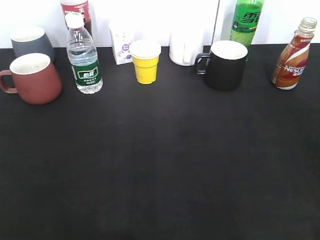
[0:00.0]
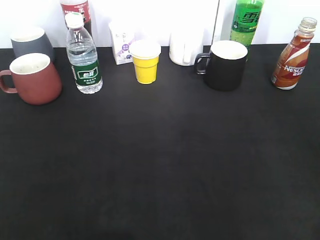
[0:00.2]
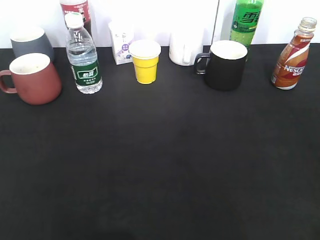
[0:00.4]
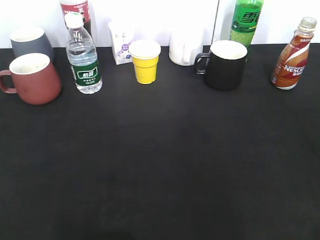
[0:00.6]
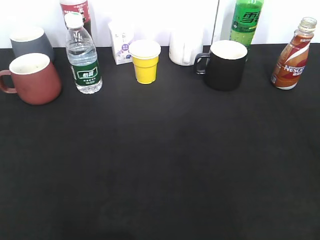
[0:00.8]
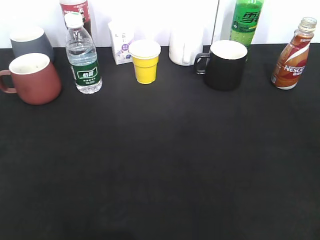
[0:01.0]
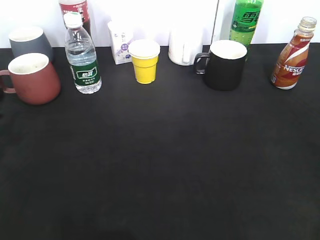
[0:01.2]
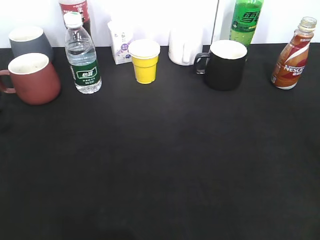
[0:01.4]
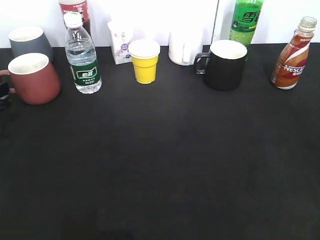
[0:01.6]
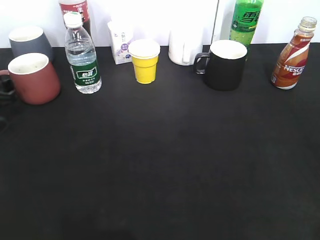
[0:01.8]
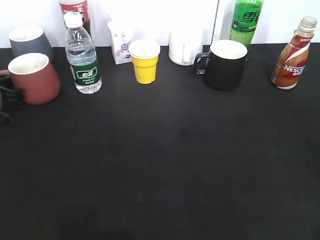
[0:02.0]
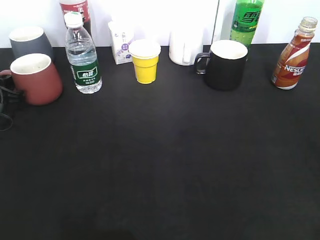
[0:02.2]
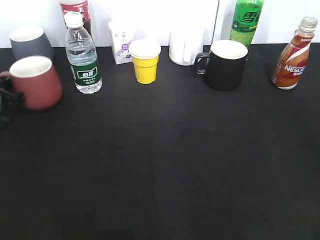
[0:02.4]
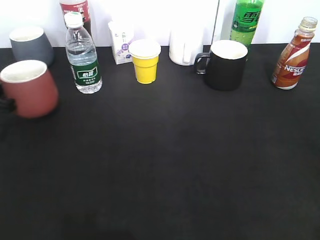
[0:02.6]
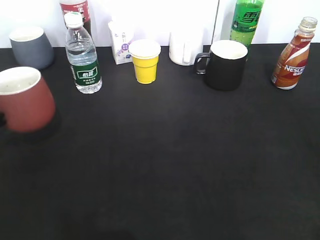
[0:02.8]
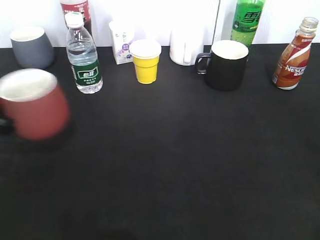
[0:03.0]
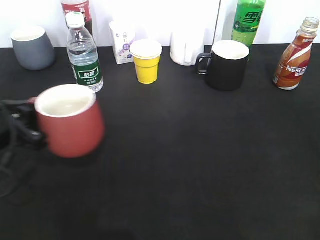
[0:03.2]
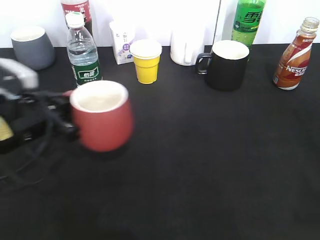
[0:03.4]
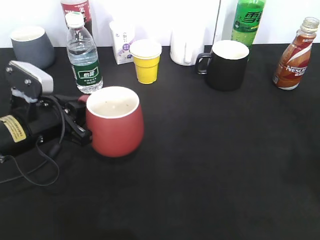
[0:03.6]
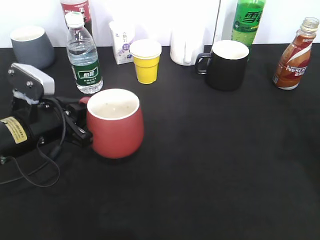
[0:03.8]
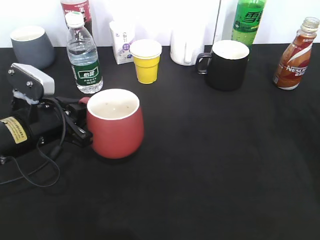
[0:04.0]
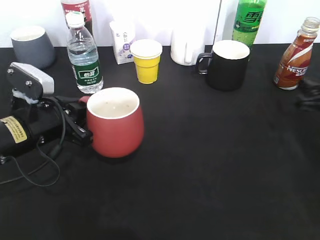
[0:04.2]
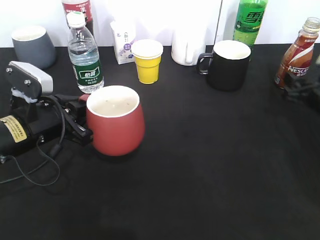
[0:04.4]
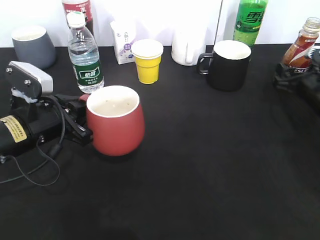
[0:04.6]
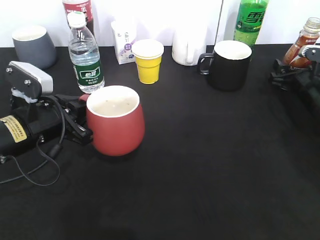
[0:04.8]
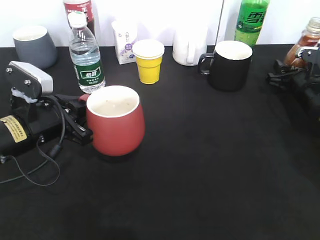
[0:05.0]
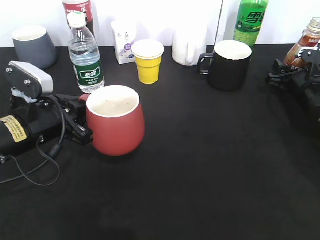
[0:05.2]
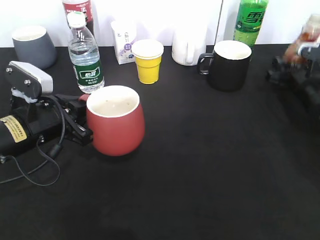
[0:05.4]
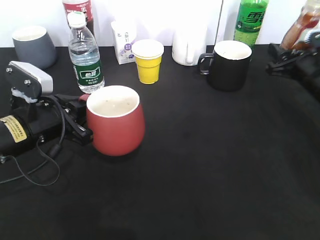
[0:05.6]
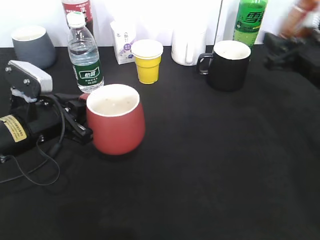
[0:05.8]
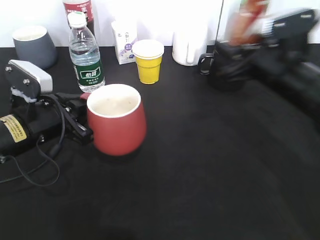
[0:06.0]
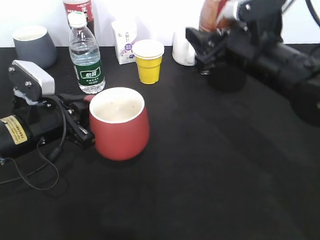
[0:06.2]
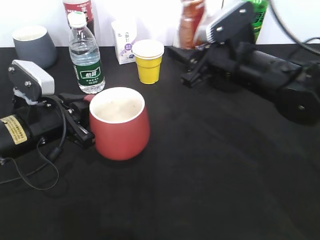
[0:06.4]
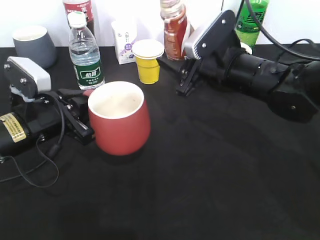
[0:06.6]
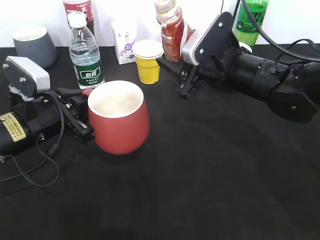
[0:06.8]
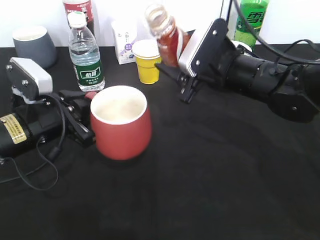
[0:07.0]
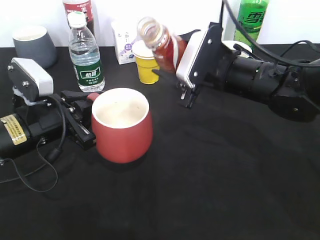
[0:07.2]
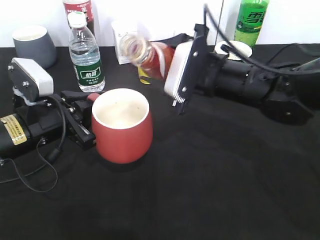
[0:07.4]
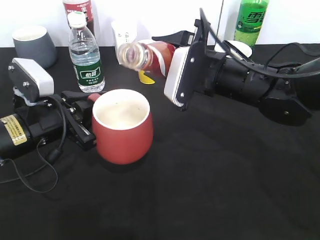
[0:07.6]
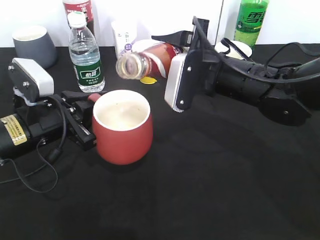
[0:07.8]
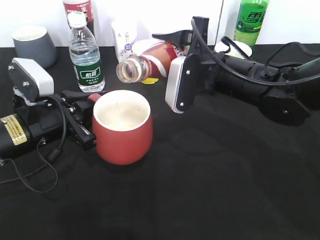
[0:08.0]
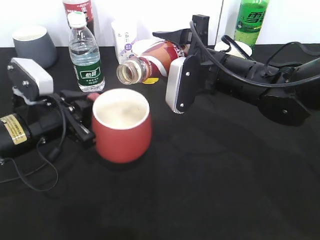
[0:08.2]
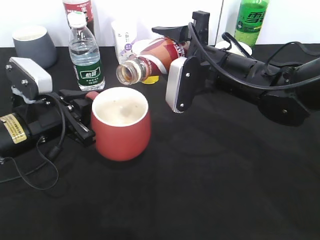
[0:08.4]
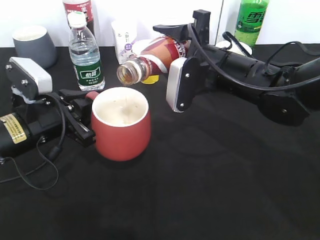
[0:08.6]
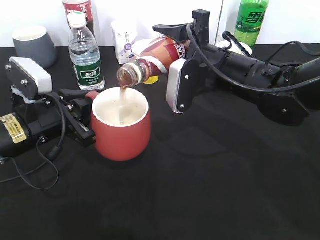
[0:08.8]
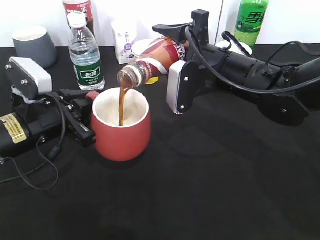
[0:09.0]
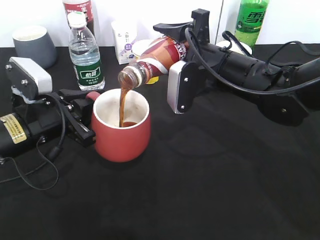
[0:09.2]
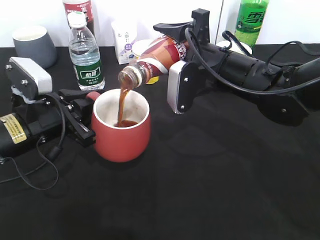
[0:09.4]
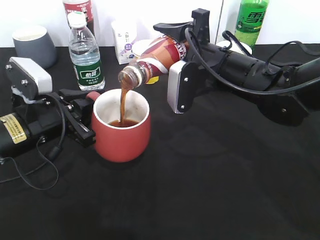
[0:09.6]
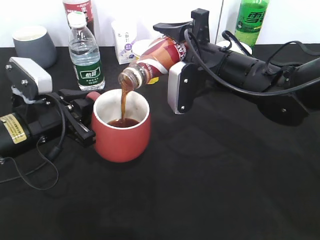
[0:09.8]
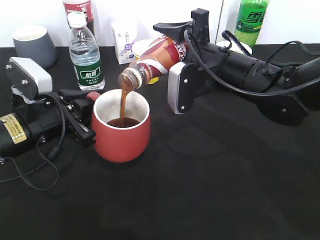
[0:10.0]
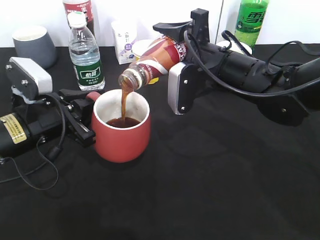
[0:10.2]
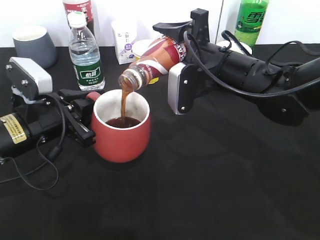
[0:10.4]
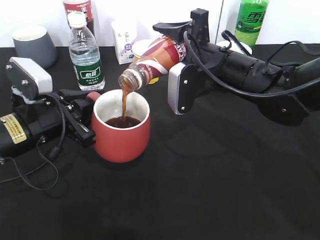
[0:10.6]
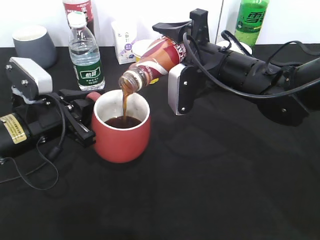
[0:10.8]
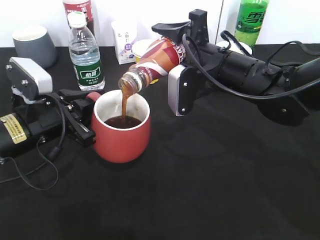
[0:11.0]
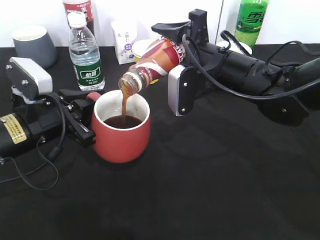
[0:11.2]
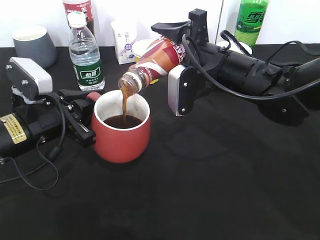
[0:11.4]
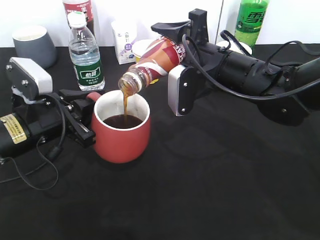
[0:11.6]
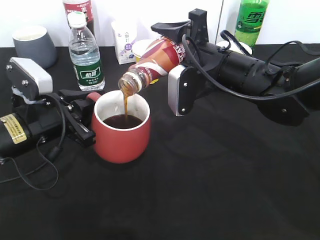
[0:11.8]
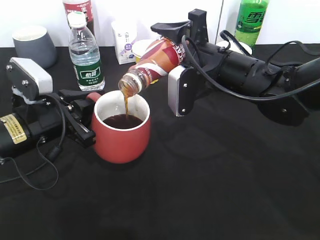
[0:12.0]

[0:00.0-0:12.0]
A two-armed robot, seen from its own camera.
Step, 0:00.0 to 0:02.2: Grasp the red cup with left gripper.
Step, 0:02.4 to 0:03.4: Lift the red cup with left gripper.
Step, 0:03.8 to 0:05.2: Grasp the bottle with coffee with right gripper.
0:00.0 to 0:01.6: The left gripper shifts roughly 35 cm forward and downward.
0:01.6 to 0:03.0: The left gripper shifts roughly 10 cm backward and to the right, and closes its fingers.
0:03.0 to 0:04.4: The left gripper goes approximately 10 cm to the right. The right gripper goes approximately 35 cm forward and downward, and opens up.
0:04.4 to 0:06.0: The right gripper is displaced to the left and upward by about 15 cm, and closes its fingers.
0:06.0 to 0:07.6: The right gripper goes approximately 10 cm to the left.
0:09.0 to 0:10.4: Both grippers stay about where they are.
0:10.4 to 0:12.0: Both grippers stay put.

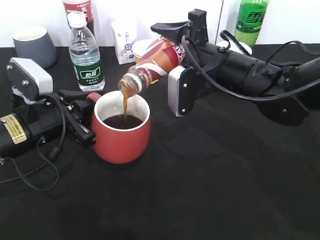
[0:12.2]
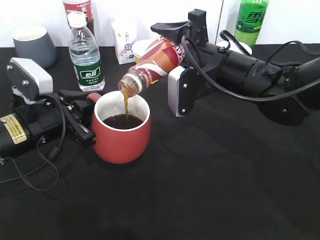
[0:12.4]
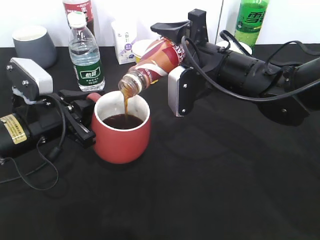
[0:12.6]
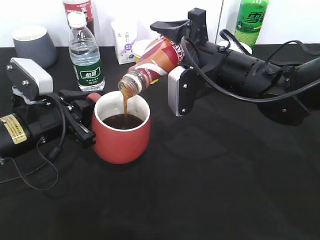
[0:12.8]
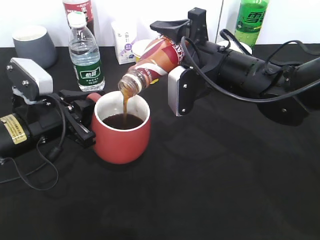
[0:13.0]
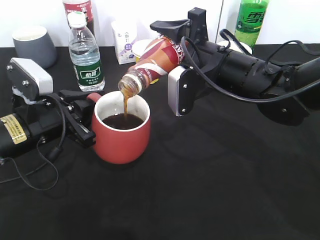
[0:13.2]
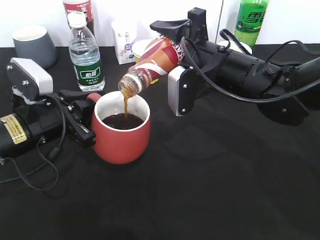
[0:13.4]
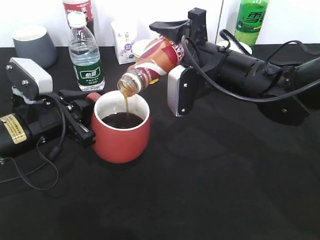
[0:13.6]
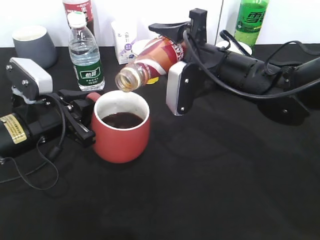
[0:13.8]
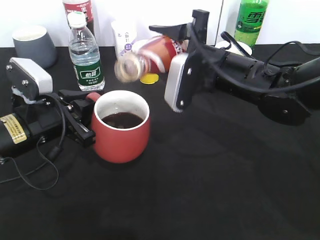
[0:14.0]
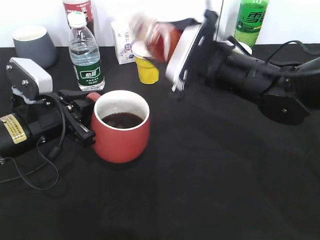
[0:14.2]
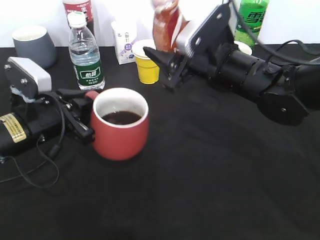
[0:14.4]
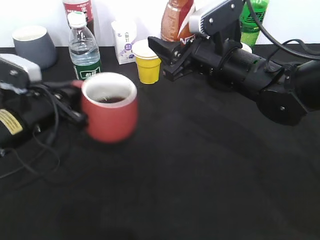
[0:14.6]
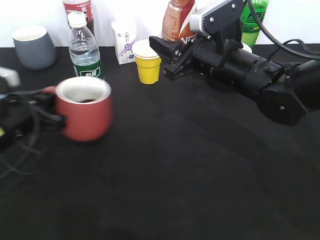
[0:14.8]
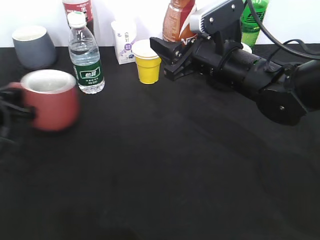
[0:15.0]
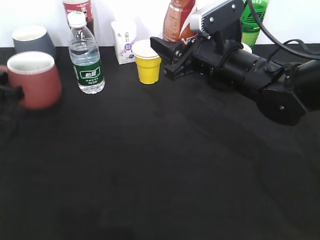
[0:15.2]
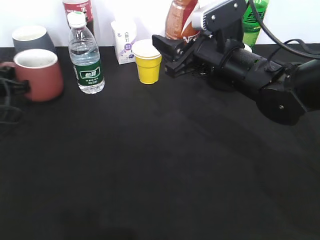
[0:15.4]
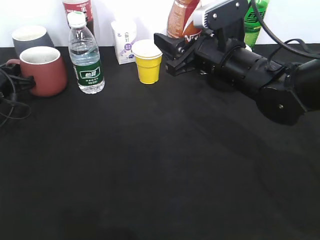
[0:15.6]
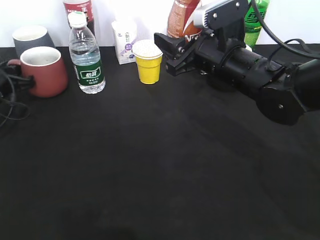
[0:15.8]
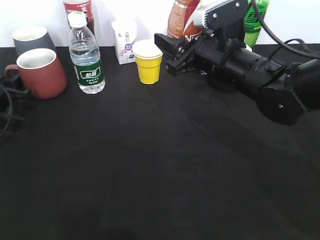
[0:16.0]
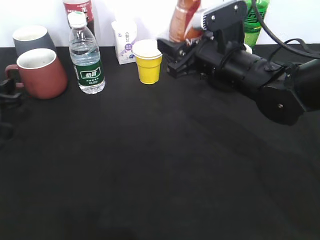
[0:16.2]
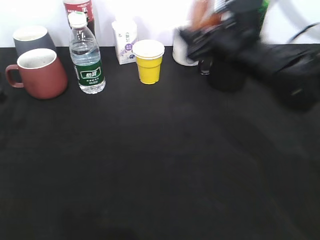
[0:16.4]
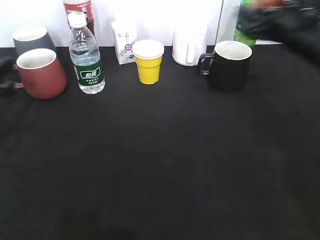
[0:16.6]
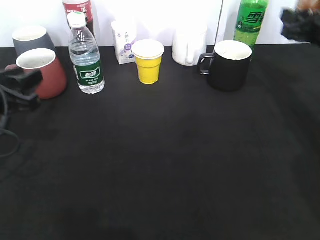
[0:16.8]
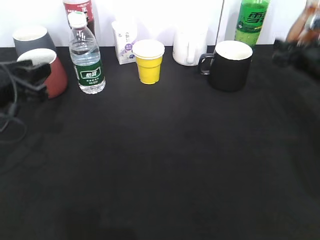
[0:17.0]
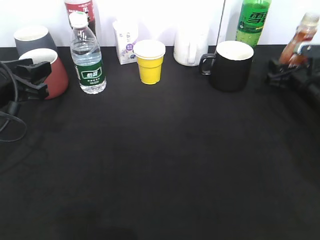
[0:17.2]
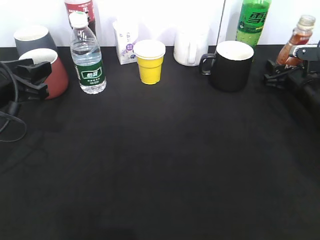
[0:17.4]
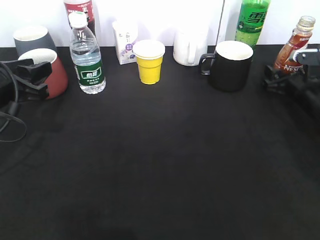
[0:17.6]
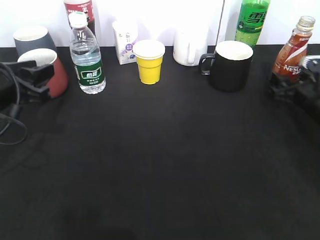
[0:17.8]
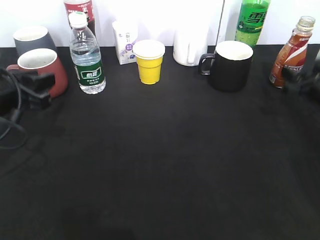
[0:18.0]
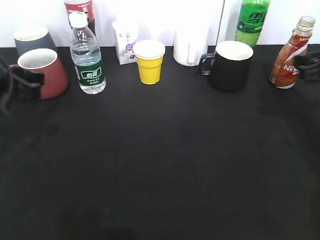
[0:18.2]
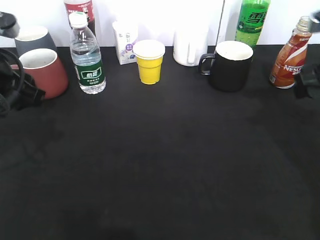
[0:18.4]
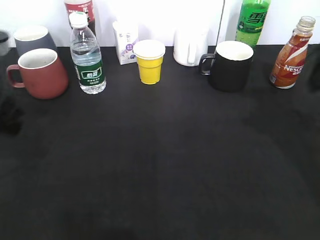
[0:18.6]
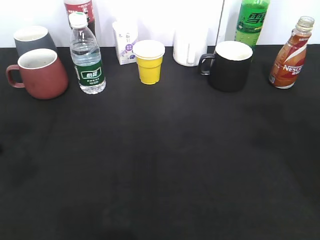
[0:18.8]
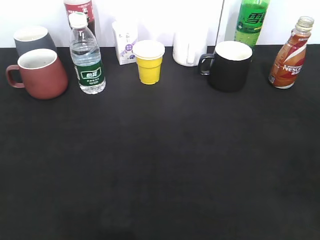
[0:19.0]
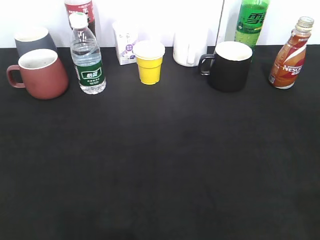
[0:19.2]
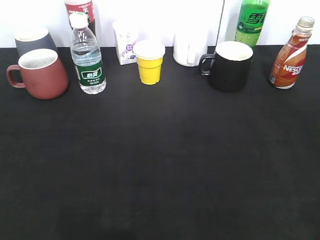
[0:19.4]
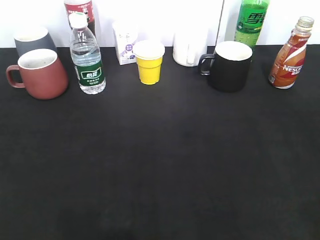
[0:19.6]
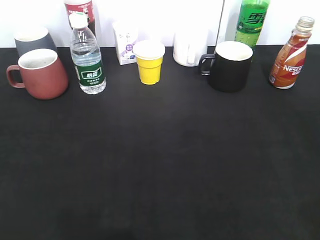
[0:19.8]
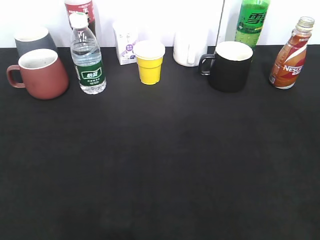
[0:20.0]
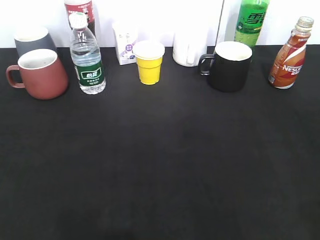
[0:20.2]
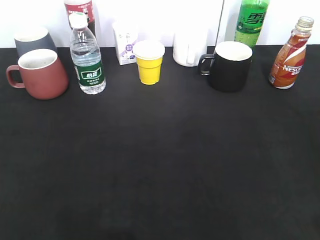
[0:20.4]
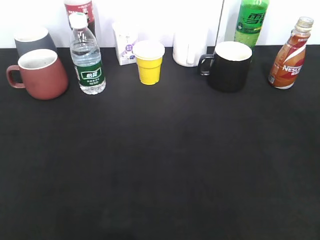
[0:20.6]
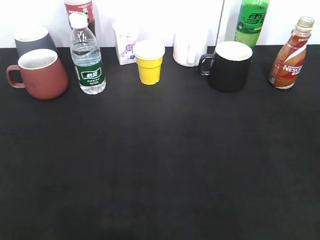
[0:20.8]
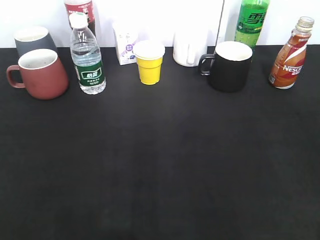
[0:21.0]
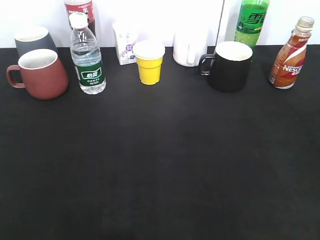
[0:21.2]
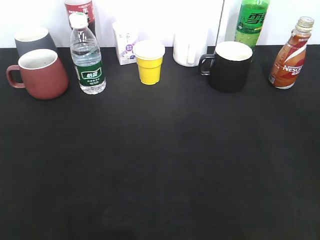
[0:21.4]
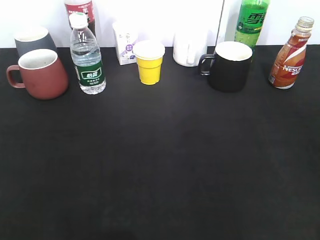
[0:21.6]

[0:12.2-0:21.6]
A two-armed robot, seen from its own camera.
Step, 0:14.2 to 0:16.0: Place the red cup on the table with left gripper.
Step, 0:16.4 to 0:17.8: Place the coffee bottle on the table with right gripper.
0:12.2 to 0:13.8: The grippers move only a little.
0:13.8 to 0:15.4: The left gripper heads to the left and forward, covering some 20 cm.
0:15.4 to 0:17.0: The right gripper moves to the right, some 20 cm, while the left gripper travels backward, upward and to the right by about 15 cm, and opens its fingers.
0:17.0 to 0:18.4: The right gripper moves upward and backward, roughly 15 cm; the left gripper is displaced upward by approximately 5 cm.
0:18.4 to 0:20.0: Both grippers move backward, about 25 cm.
